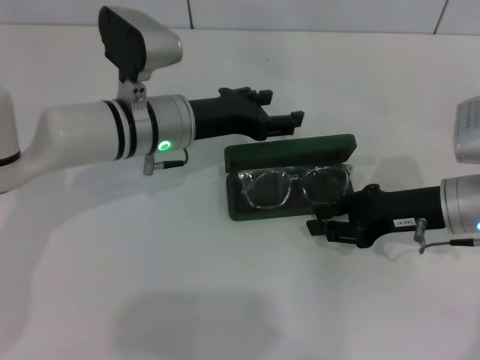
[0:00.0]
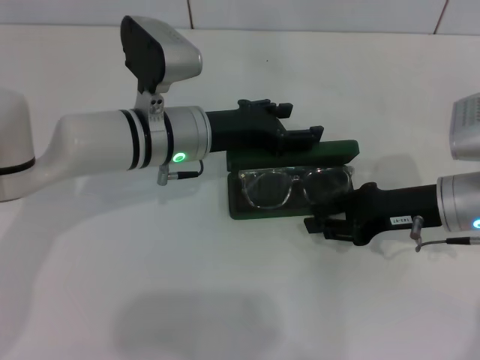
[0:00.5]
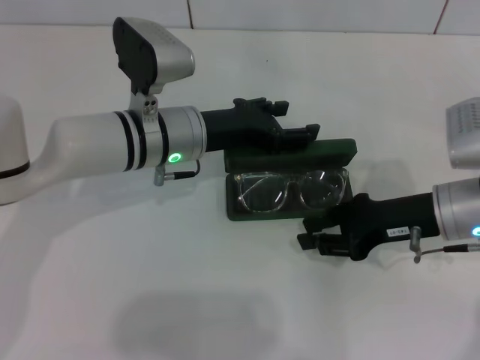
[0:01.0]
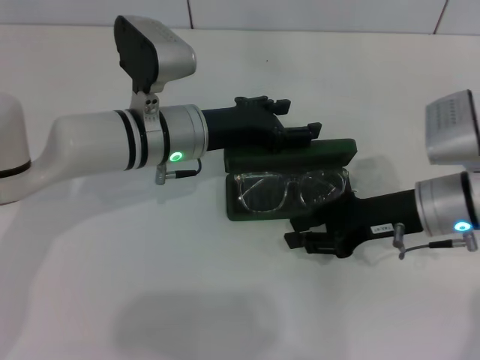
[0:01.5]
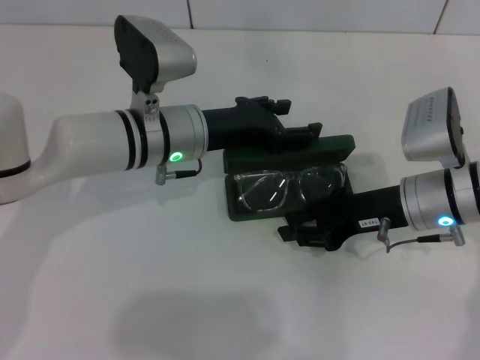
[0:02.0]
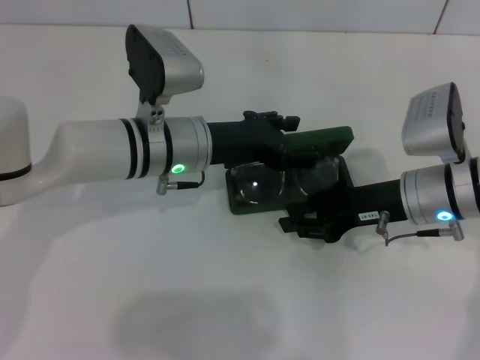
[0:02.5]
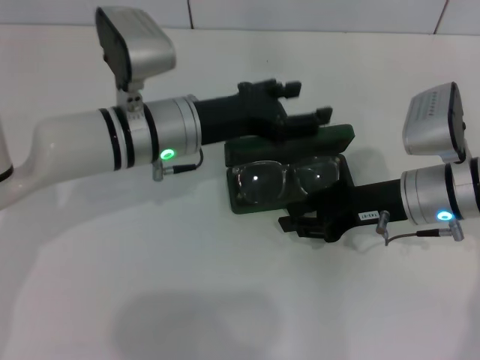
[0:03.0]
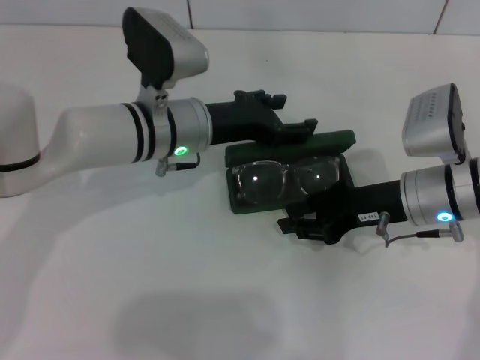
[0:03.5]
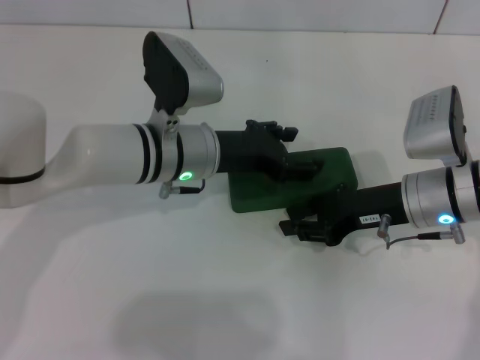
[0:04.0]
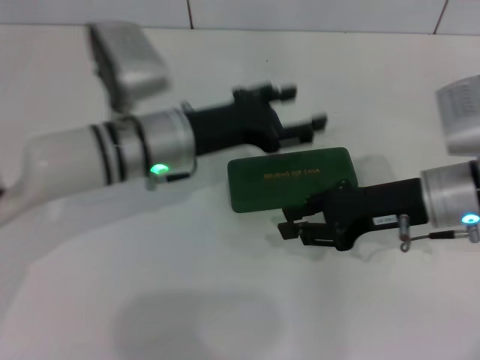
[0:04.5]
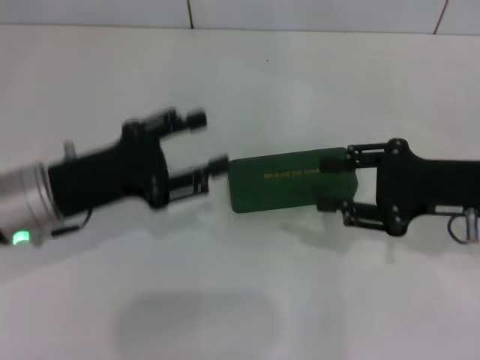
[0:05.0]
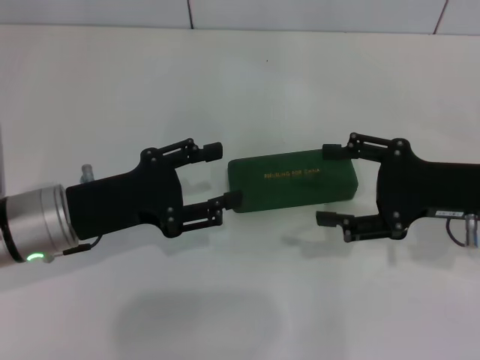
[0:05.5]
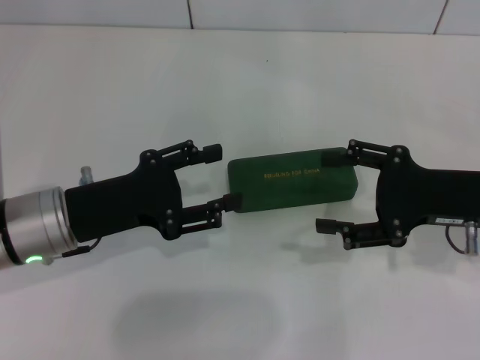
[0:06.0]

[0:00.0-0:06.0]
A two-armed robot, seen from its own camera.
Step, 0:00.0 to 0:03.5: Close the glasses case with your left hand.
0:00.0 to 0:04.0: The grippers move only a little.
0:04.0 to 0:06.0: The right gripper moves to the right, some 5 cm, and opens up. The left gripper goes roughly 15 cm to the left and backward.

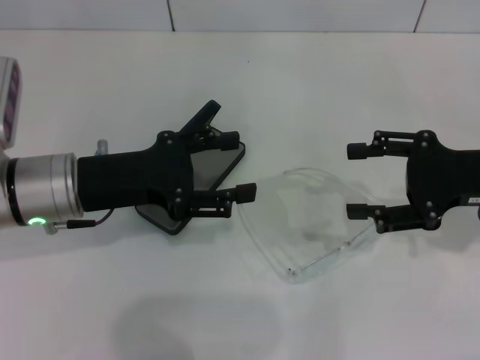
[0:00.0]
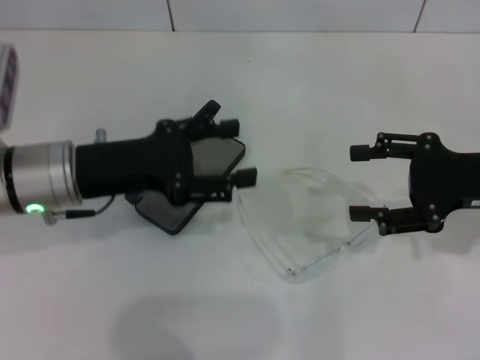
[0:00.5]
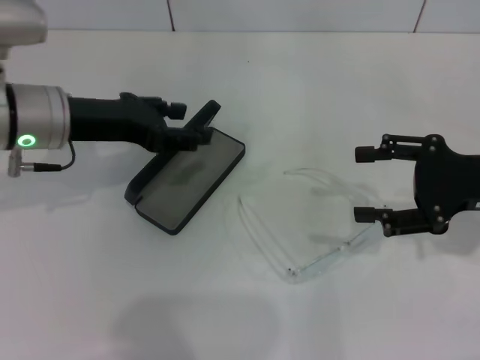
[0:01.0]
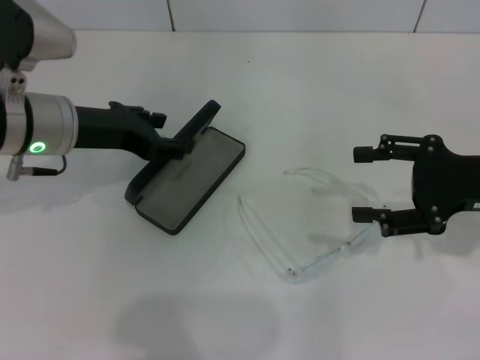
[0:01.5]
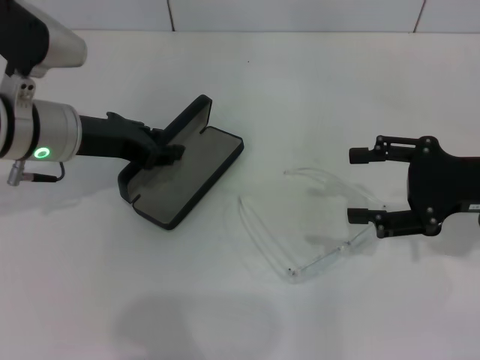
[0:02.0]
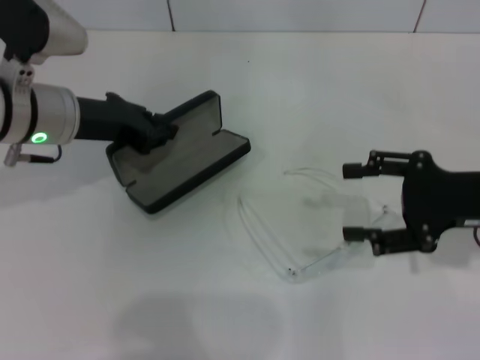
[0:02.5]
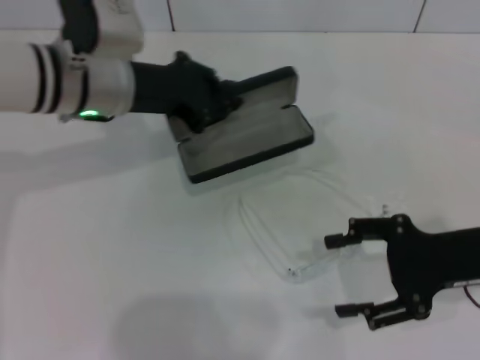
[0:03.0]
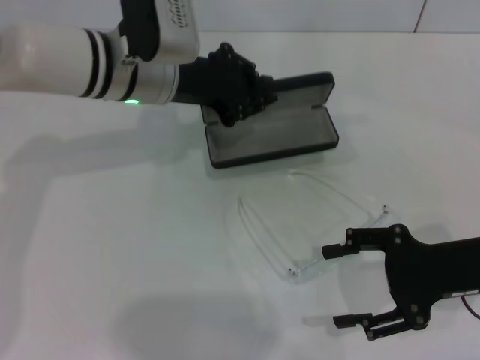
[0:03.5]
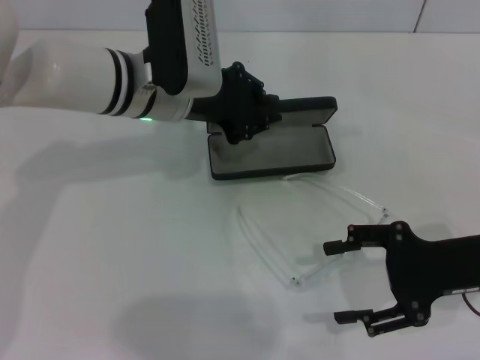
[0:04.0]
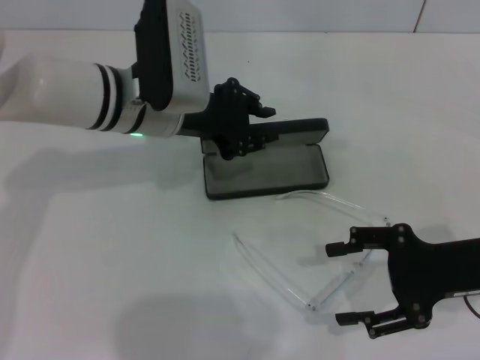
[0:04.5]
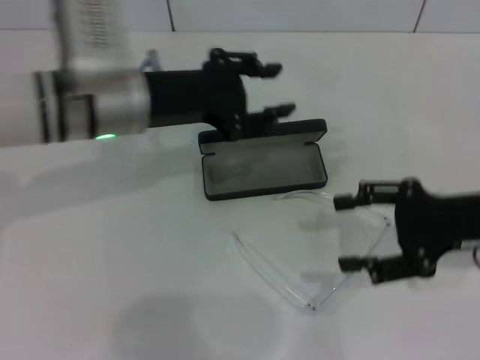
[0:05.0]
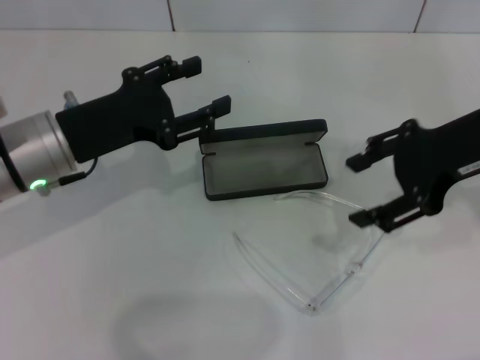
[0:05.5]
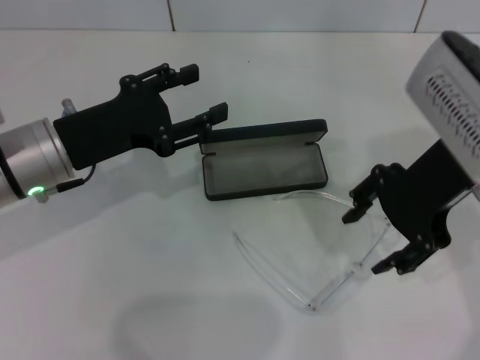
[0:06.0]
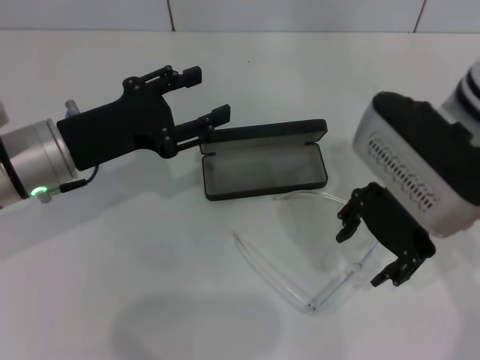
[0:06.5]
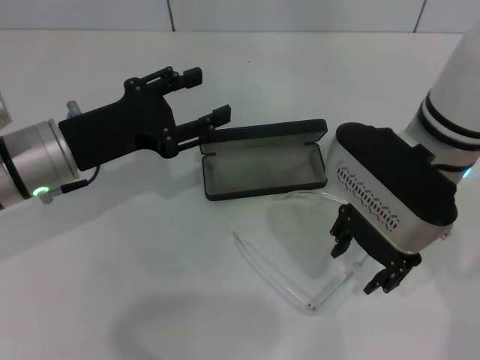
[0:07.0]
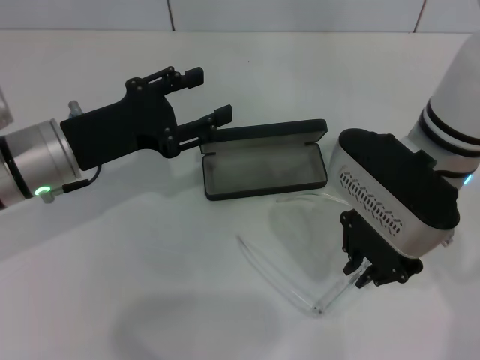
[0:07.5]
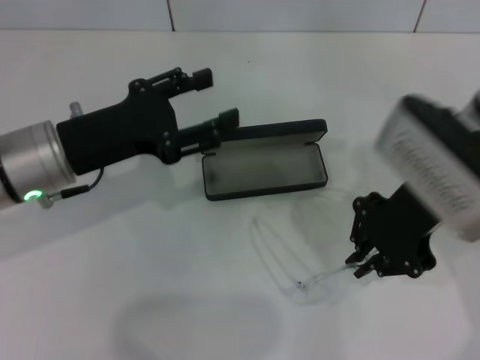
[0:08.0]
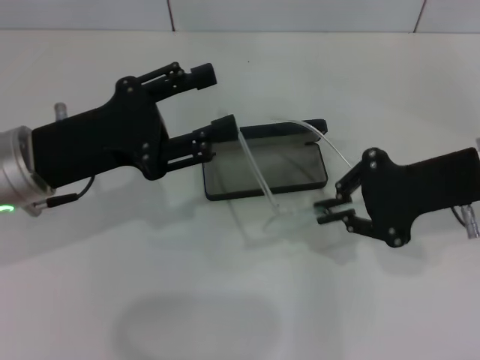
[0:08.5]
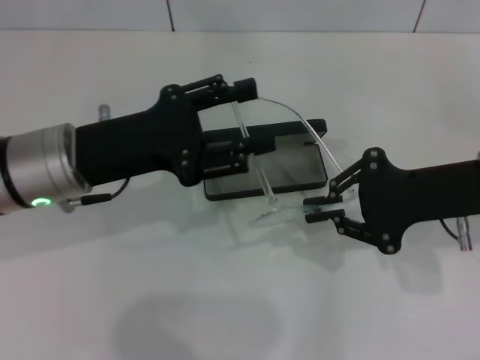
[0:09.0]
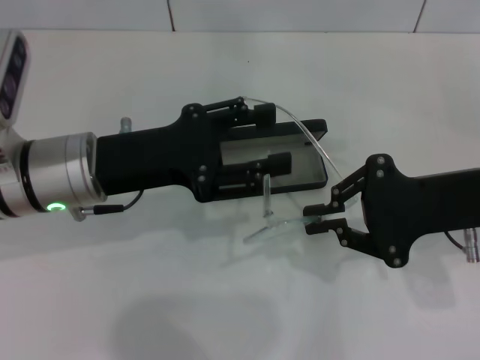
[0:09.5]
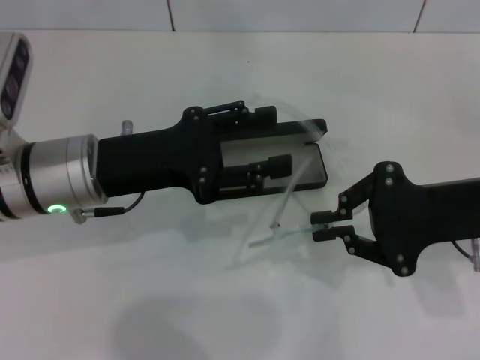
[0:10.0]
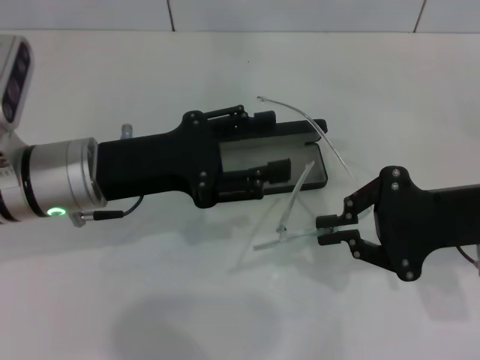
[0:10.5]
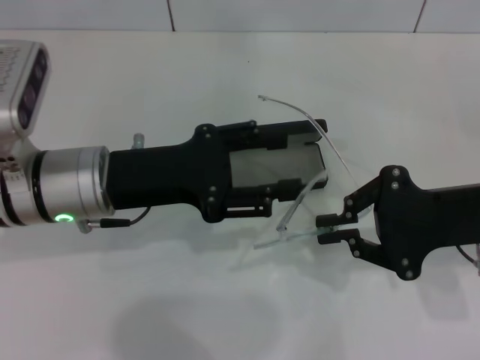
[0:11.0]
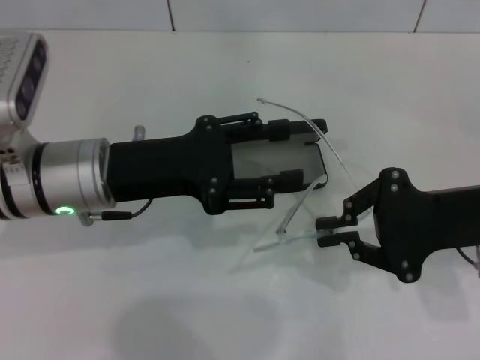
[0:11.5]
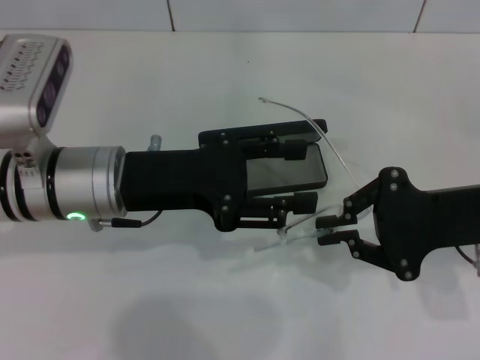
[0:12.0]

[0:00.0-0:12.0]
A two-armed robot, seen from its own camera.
Step, 0:00.0 to 0:02.0: Grab the glasses case with your left hand.
Step, 0:02.5 to 0:04.5: Place the glasses case in the center of the table with your left hand.
Step, 0:05.0 to 0:07.5: Grab the eyeglass frame with your right hand.
0:00.0 to 0:02.0: The left gripper heads forward, covering some 5 cm.
0:02.0 to 0:04.0: The left gripper is displaced to the right by some 10 cm, and closes up. Meanwhile the right gripper changes place by roughly 5 cm.
0:04.0 to 0:06.0: The right gripper travels upward, to the left and forward by approximately 15 cm. The left gripper is displaced to the left and backward by roughly 15 cm, and opens its fingers.
0:06.0 to 0:08.0: The right gripper closes up.
0:08.0 to 0:10.0: The right gripper goes some 10 cm to the right.
0:10.0 to 0:12.0: The grippers stay close to where they were, moving slightly.

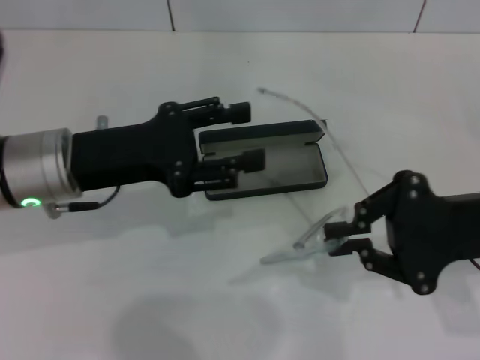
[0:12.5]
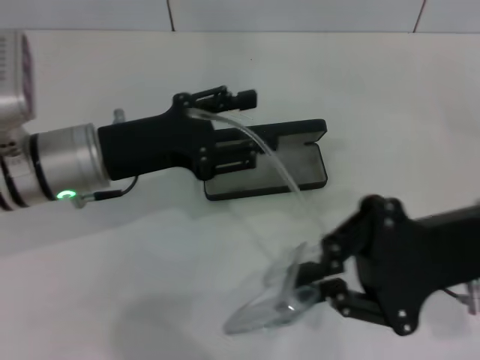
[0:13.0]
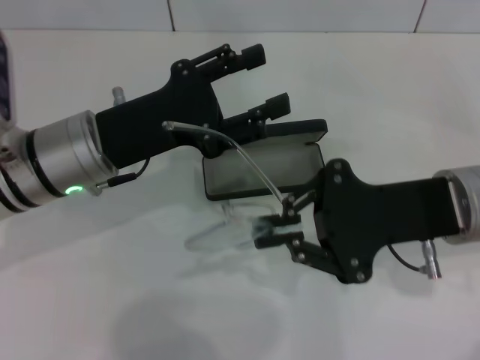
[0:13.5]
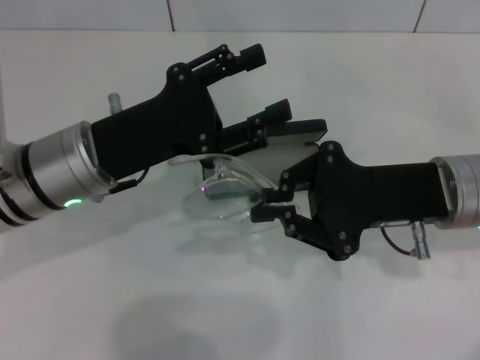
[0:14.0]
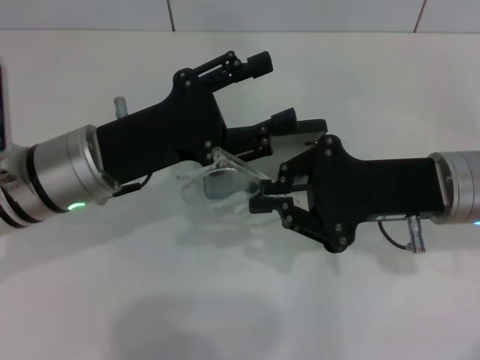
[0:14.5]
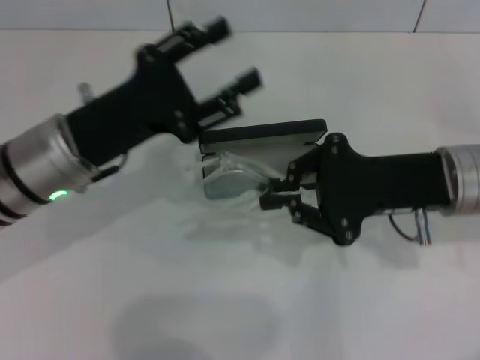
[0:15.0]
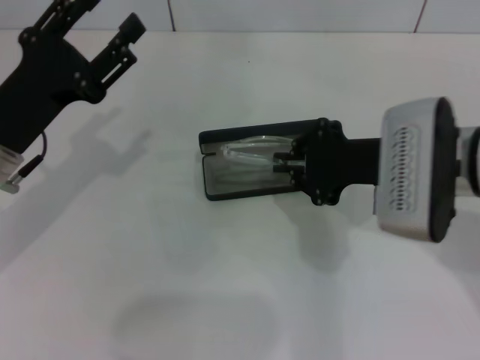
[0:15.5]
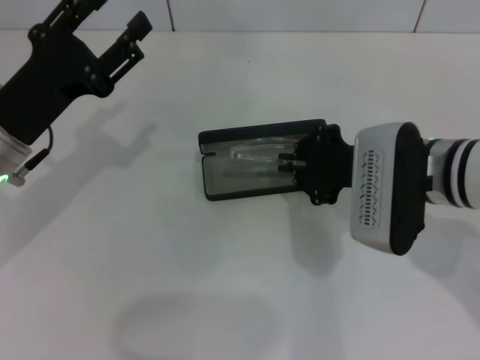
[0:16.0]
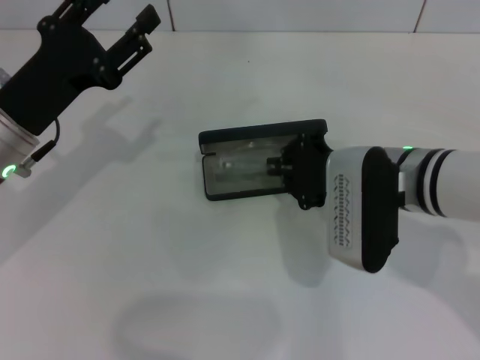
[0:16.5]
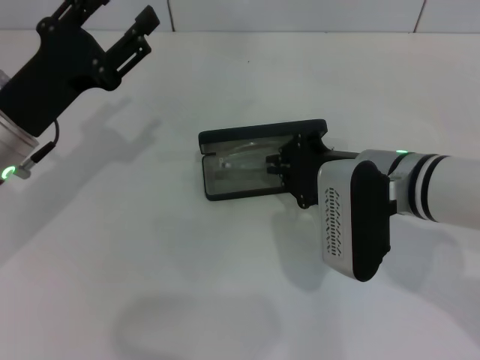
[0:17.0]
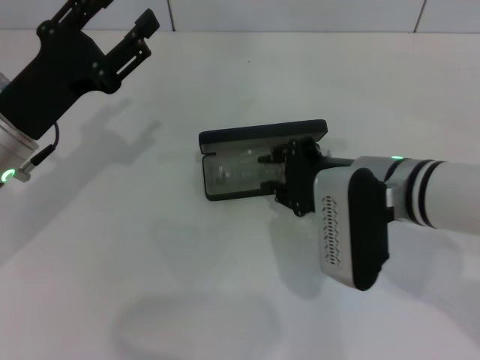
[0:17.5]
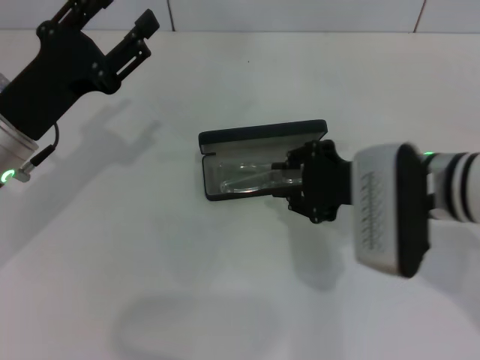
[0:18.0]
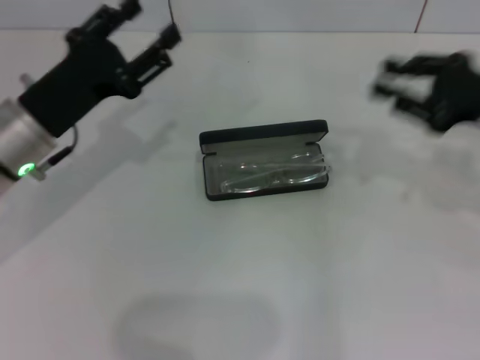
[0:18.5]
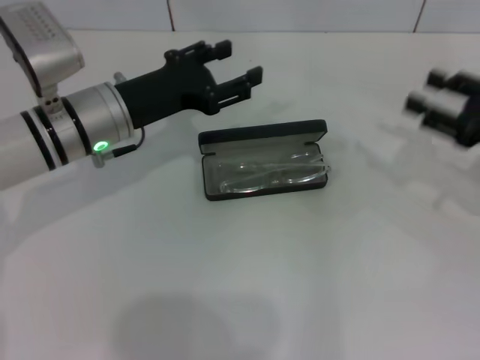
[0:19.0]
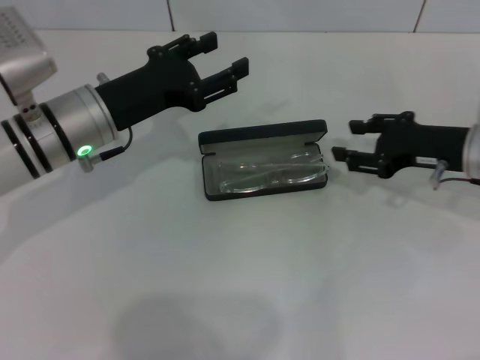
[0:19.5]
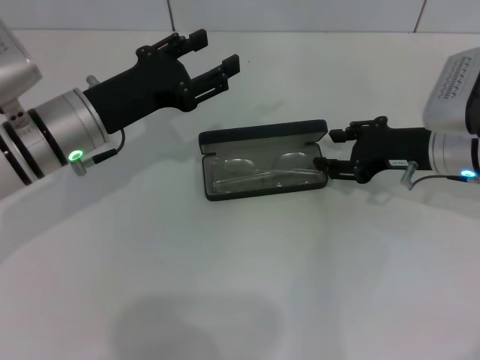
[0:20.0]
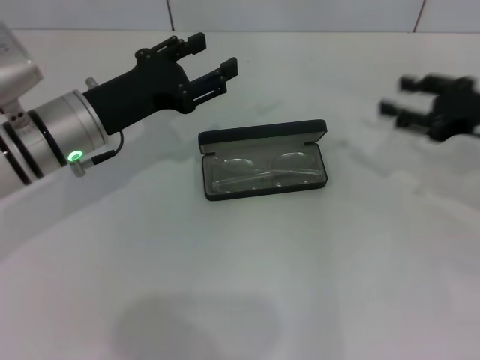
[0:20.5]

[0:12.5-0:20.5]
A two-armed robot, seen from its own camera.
Step, 0:14.5 to 0:19.5: Put the glasses into the case with your right hand.
0:12.5 to 0:14.5: The right gripper goes about 5 cm to the left.
0:14.5 to 0:16.5: Both grippers move to the left, some 5 cm.
0:16.5 to 0:18.5: The right gripper shifts approximately 15 cm to the right, and opens.
0:18.5 to 0:20.5: The right gripper travels to the left and back again, some 5 cm each way.
